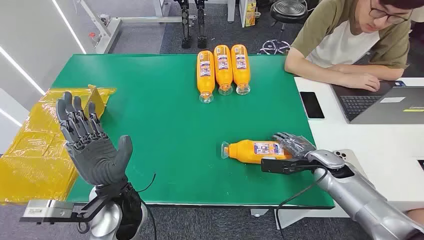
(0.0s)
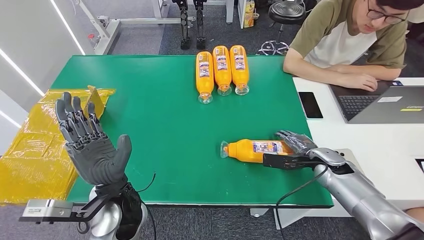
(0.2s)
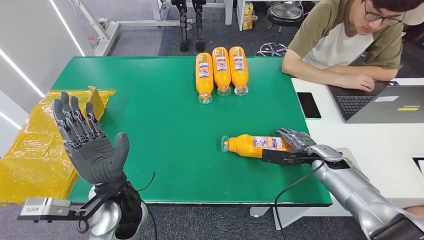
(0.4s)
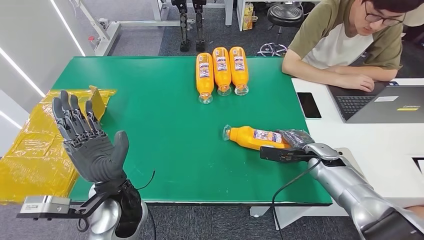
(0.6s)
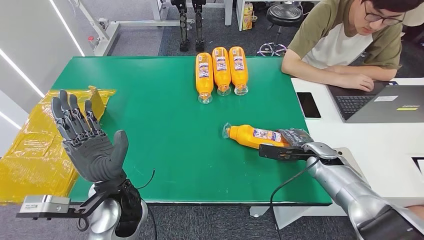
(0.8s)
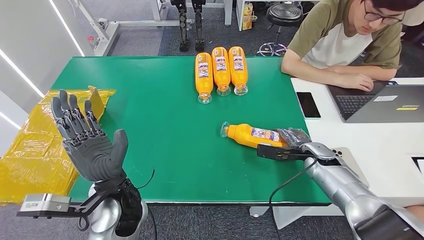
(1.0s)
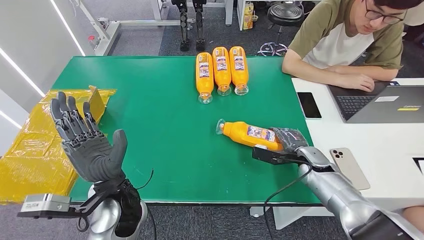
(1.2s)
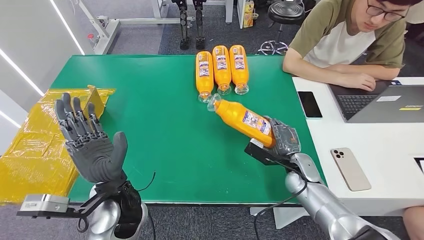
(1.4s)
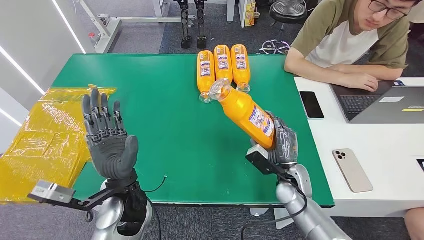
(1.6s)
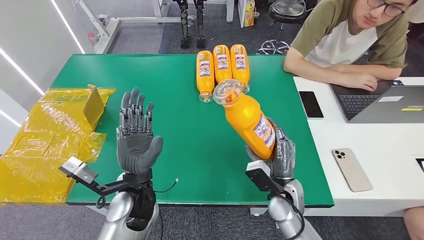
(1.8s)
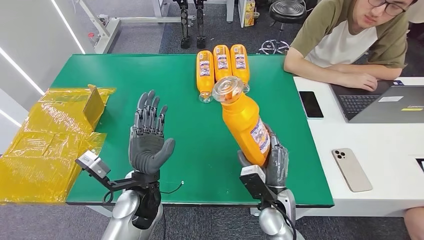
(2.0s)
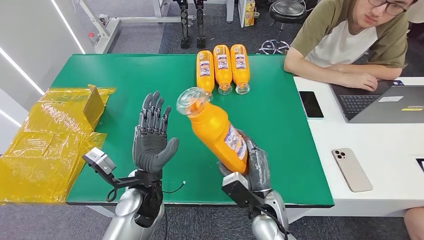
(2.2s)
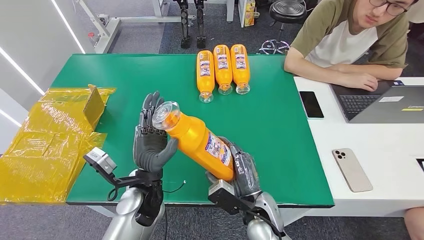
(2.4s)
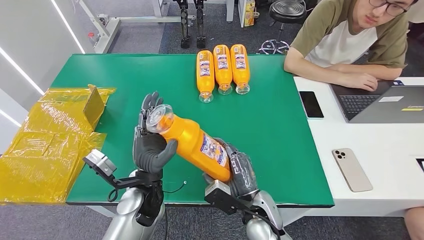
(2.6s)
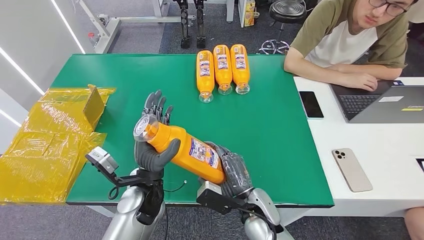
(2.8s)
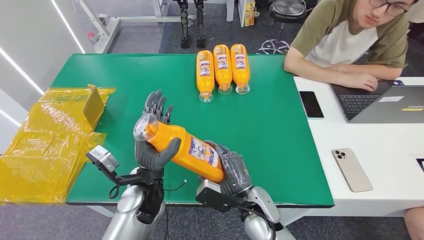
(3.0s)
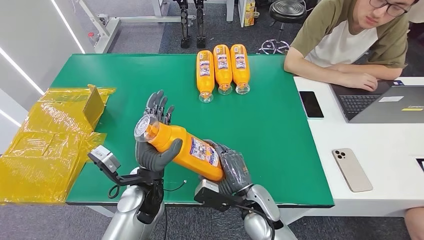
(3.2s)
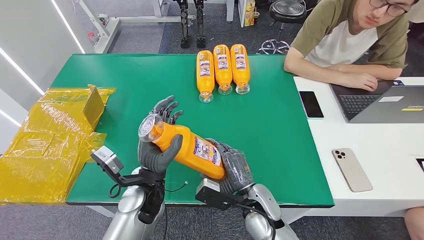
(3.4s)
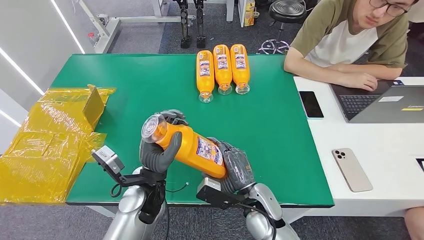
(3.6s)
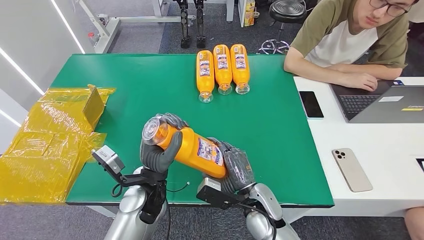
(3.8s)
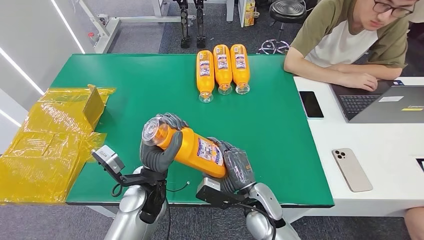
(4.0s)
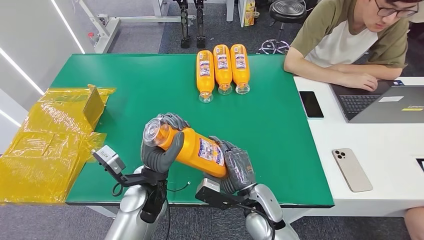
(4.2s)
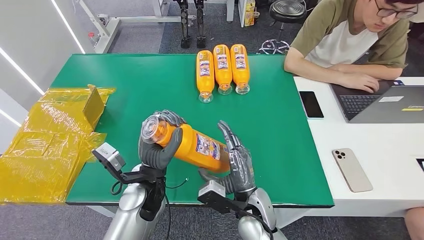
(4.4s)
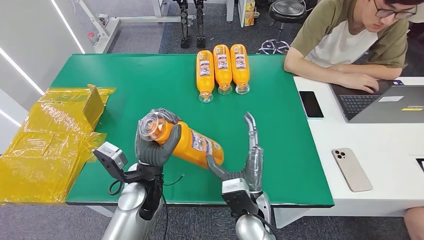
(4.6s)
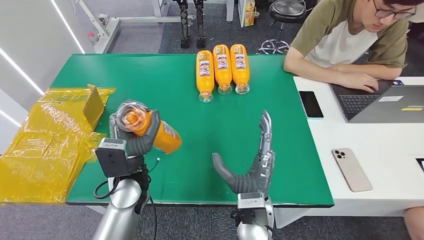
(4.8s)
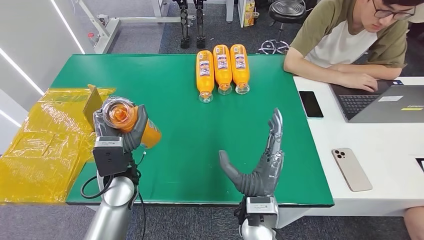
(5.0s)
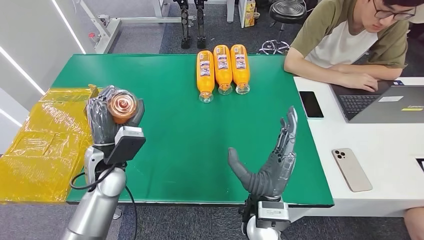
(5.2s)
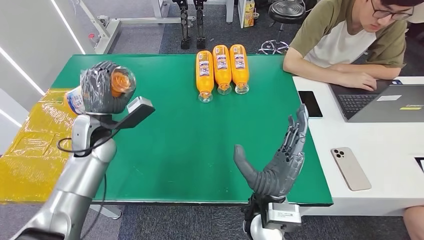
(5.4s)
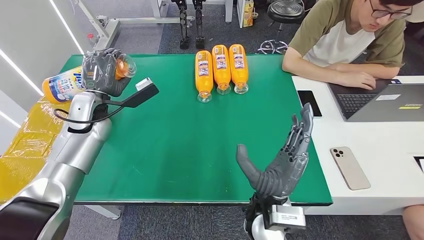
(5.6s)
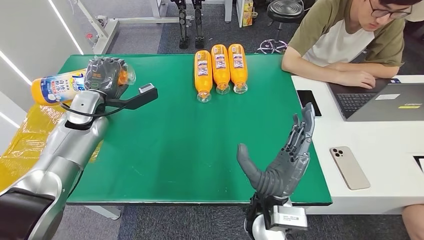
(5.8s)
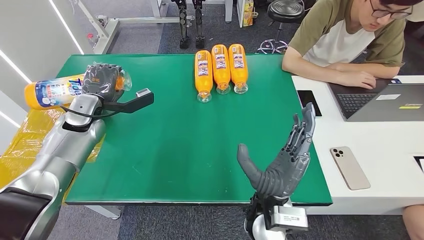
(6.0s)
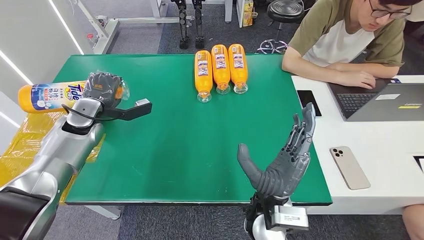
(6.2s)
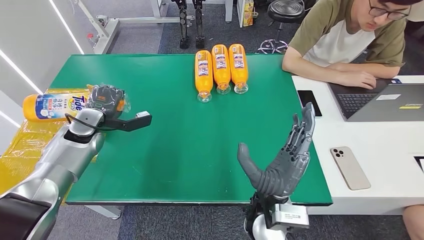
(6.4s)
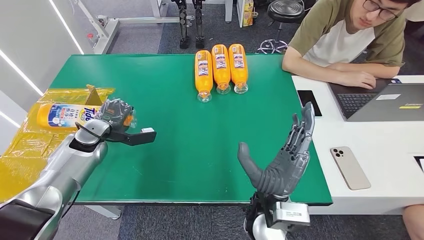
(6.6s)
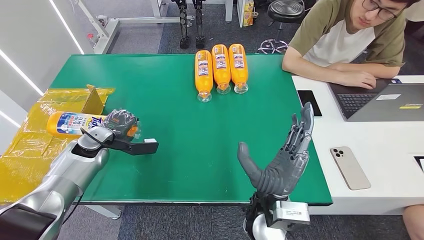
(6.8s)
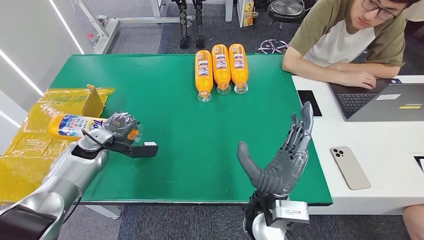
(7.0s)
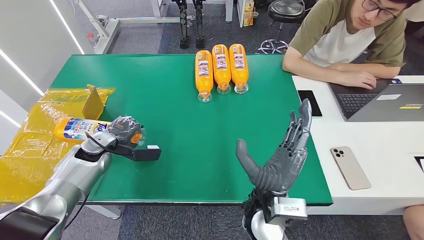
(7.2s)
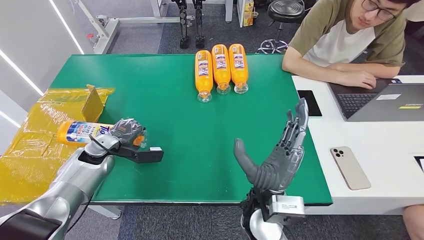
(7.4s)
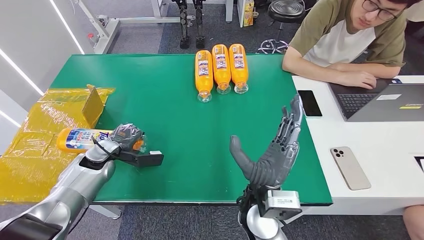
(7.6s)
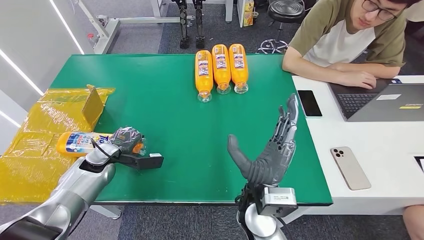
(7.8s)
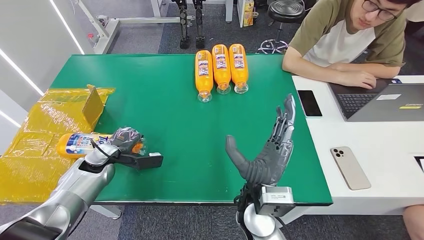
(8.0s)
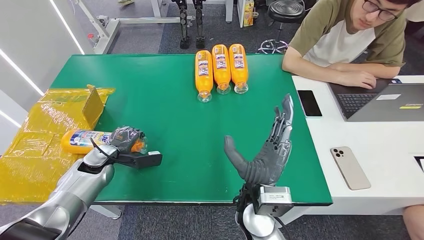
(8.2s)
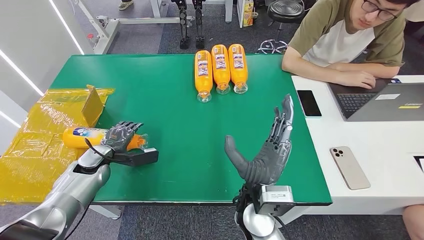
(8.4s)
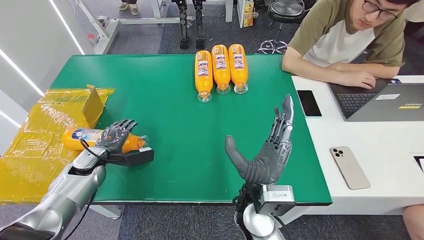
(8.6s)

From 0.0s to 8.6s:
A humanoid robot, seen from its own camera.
Step, from 0.0s to 2.8s: Pick up the bottle from the table.
Step, from 3.0s to 8.6s: Turn the bottle to the front side.
From 2.8s to 4.4s: The hands move only a little.
From 5.8s to 7.2s: The left hand is displaced downward and backward by roughly 10 cm.
From 7.2s to 8.6s: The left hand ends up about 5 cm from where it was.
